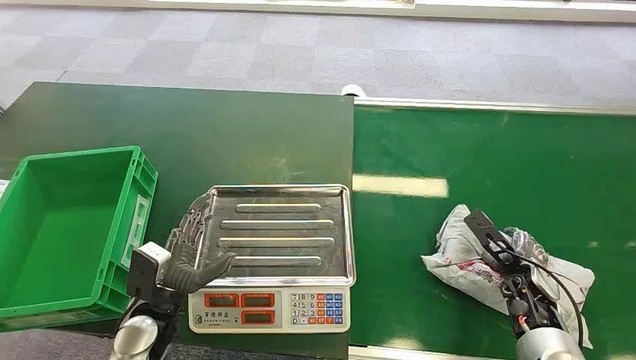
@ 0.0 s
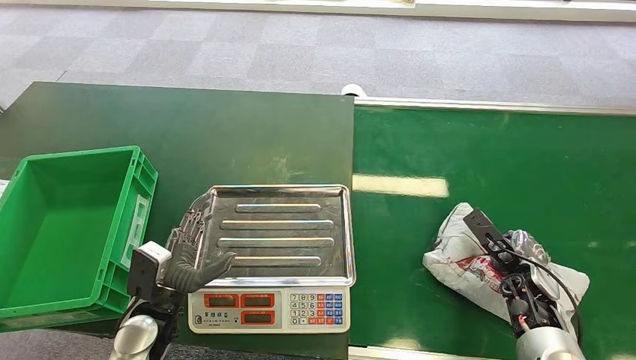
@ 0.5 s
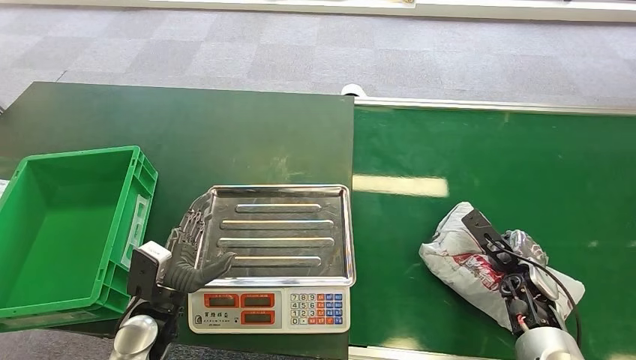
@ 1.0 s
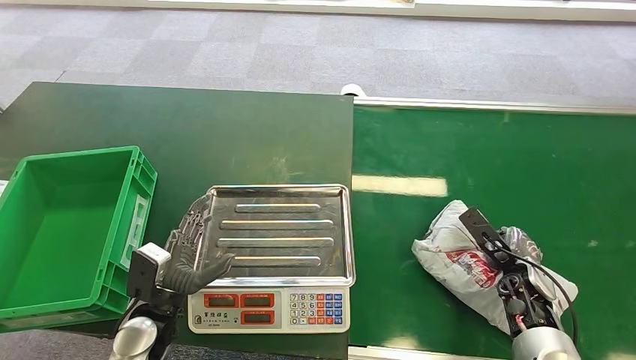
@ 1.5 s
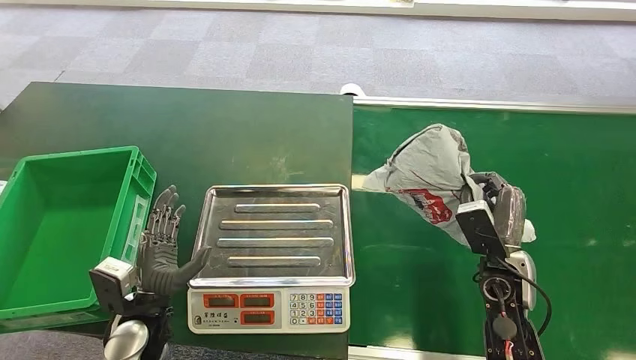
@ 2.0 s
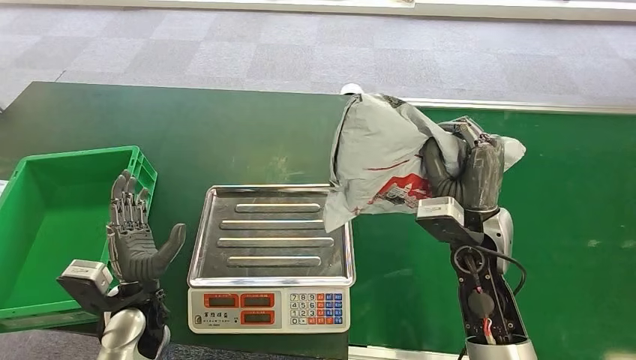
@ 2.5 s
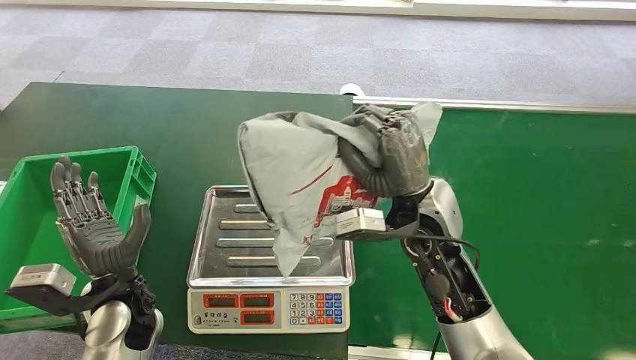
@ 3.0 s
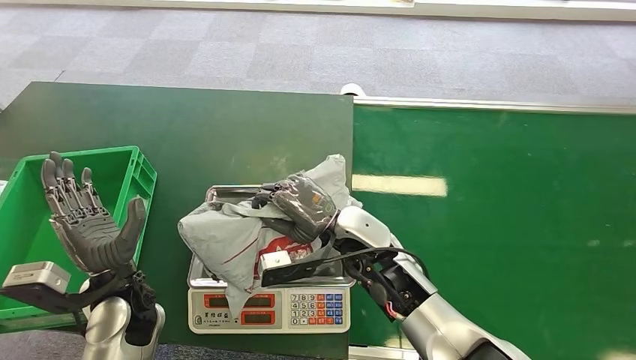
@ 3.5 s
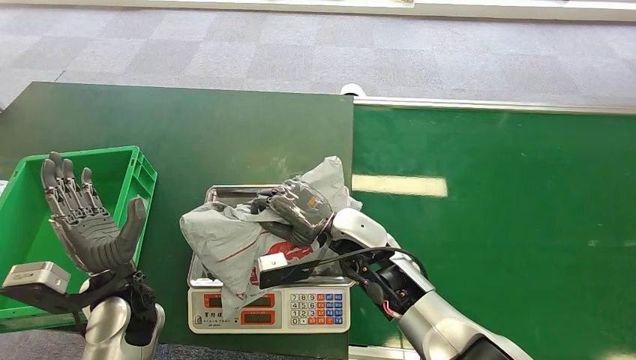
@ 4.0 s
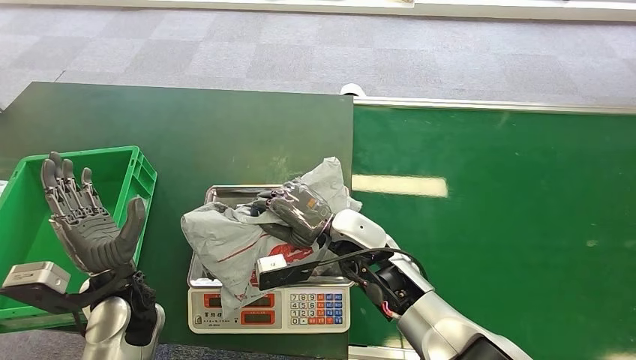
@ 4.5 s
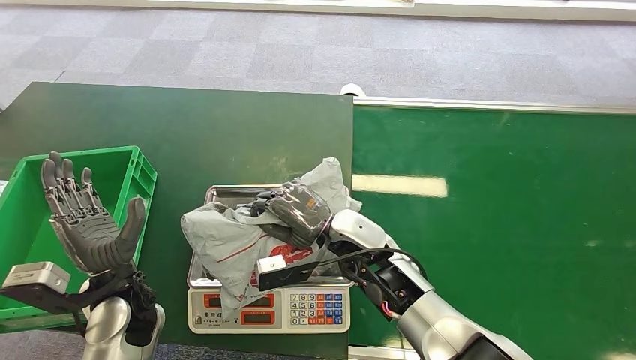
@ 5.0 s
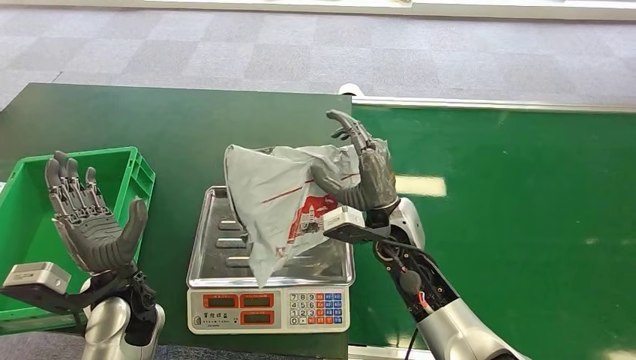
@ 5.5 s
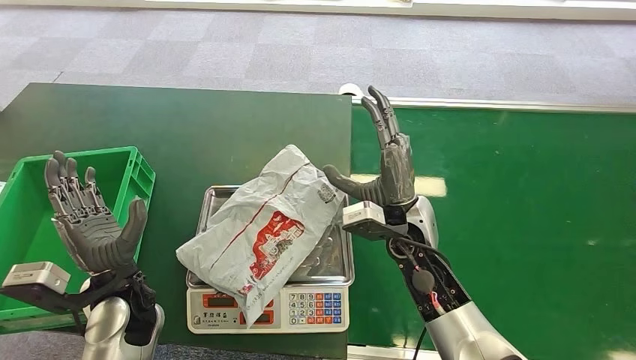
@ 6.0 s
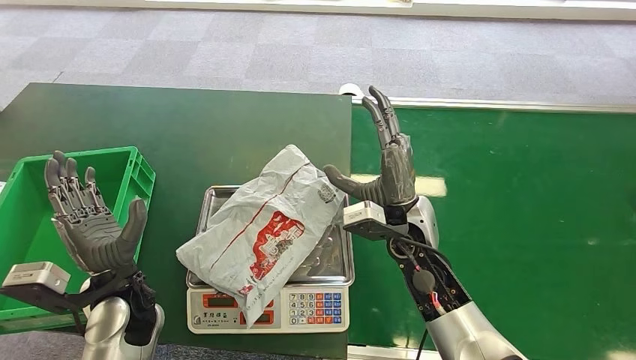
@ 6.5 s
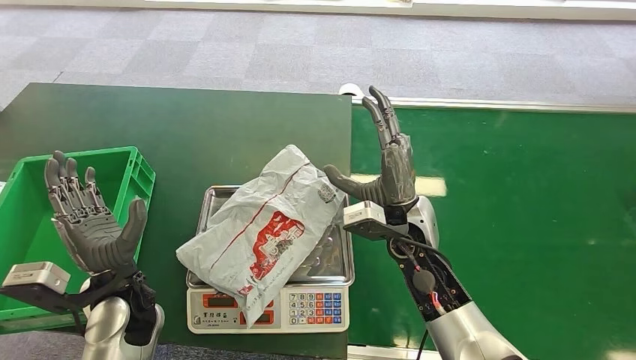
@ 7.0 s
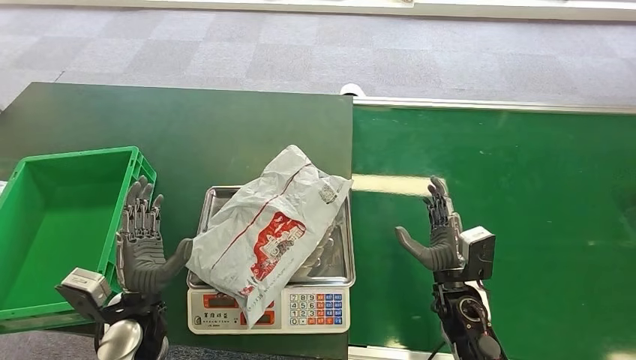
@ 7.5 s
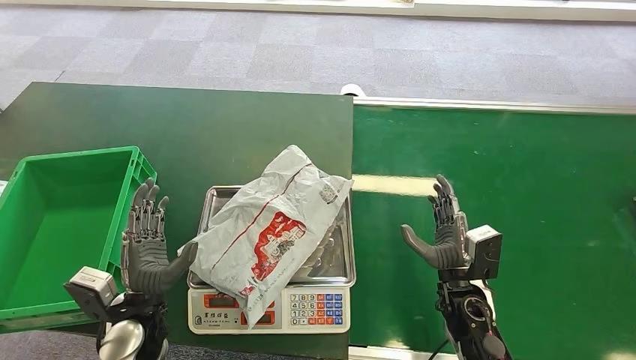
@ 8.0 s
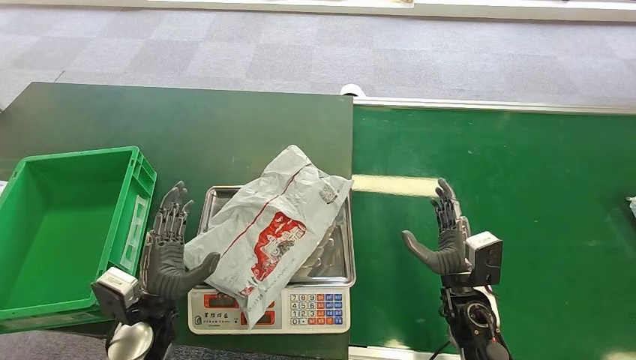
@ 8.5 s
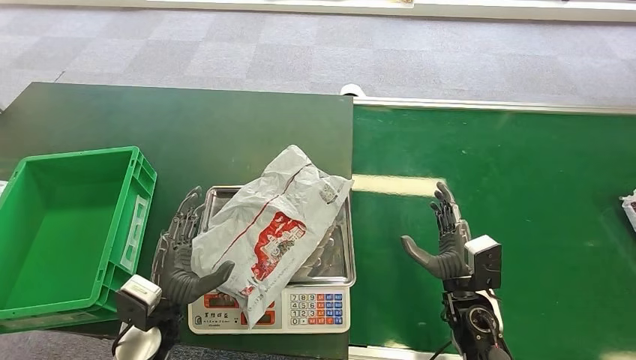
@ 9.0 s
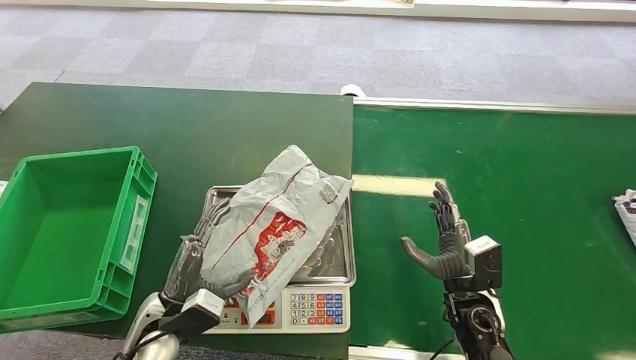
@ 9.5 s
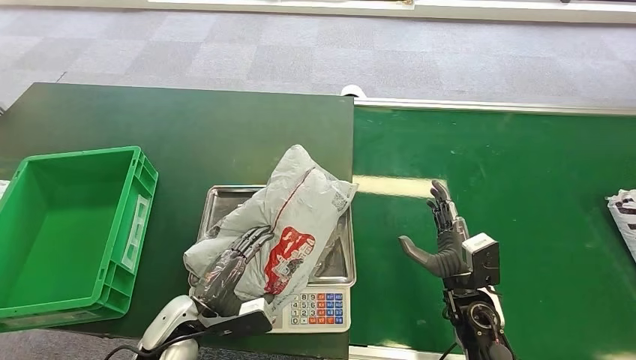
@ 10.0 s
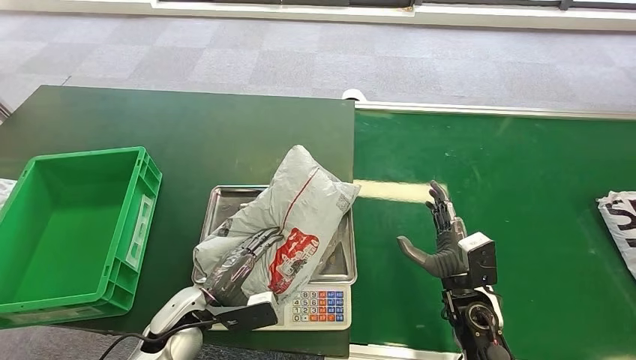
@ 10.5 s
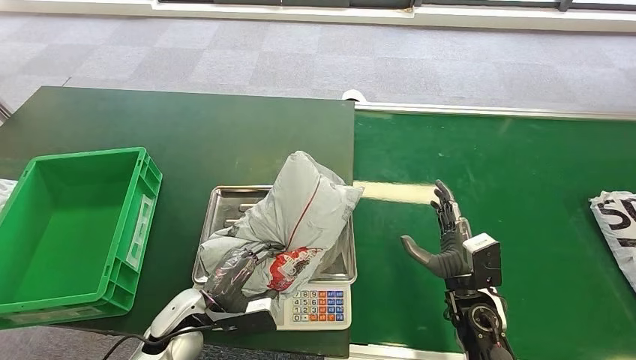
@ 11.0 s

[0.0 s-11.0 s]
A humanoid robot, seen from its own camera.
Task of the whole recording: Weigh the package on the weighing device and place it in the left basket.
Step, 0.0 to 2.0 s: Pick up the package from the conveyor belt.
Step, 3.5 to 4.0 s: Place the package onto the inbound machine.
3.5 to 5.5 s: The right hand ends up roughly 5 cm from where it was.
7.5 to 9.0 s: The hands stay close to where they were, moving slightly.

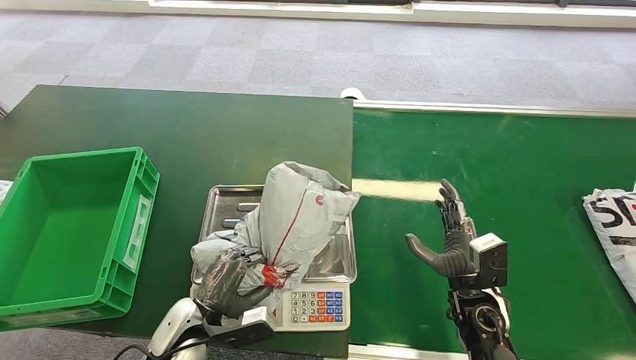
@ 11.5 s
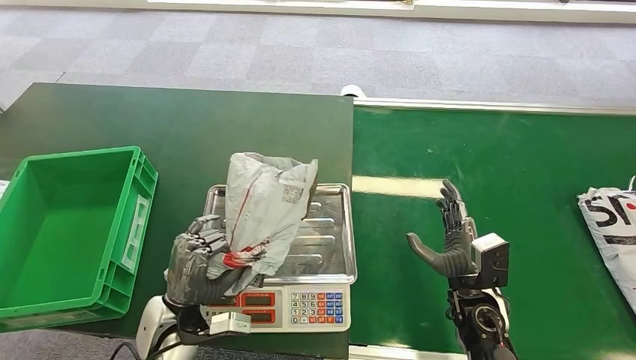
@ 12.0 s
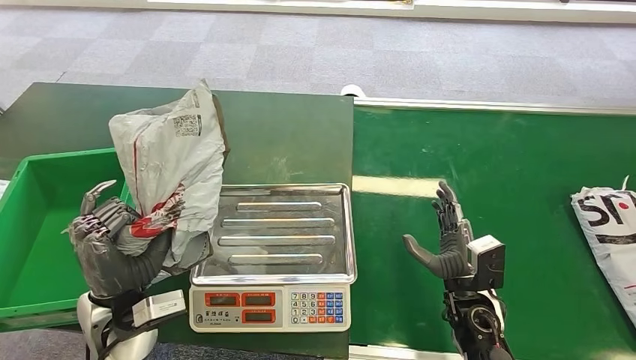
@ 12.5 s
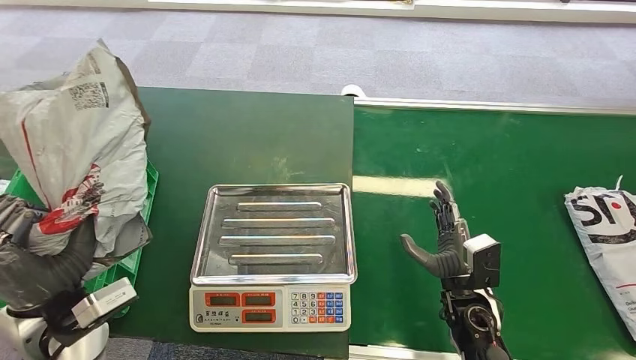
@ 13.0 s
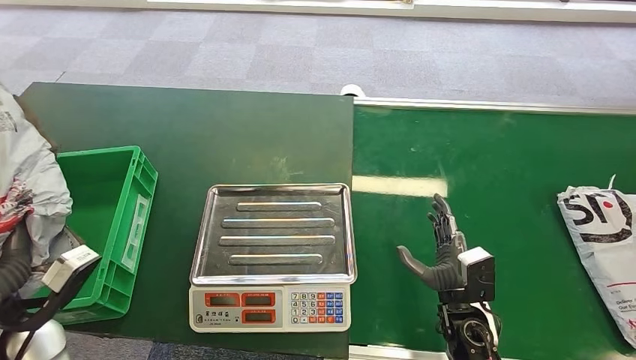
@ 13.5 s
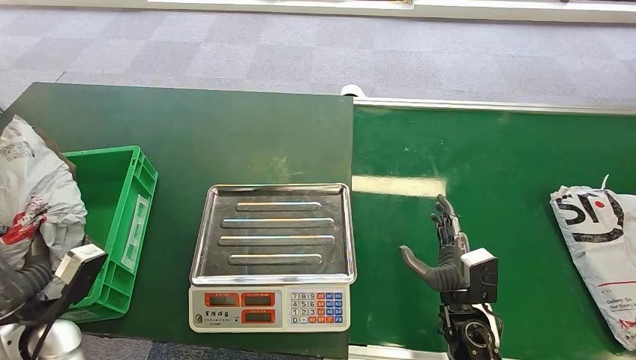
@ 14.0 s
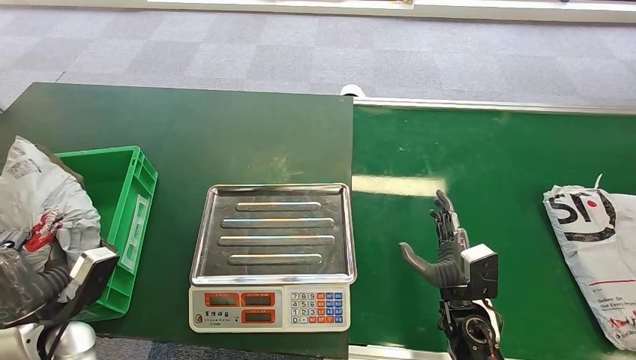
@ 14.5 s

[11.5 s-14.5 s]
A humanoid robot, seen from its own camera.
Task of the whole recording: Weigh the package on the weighing device and place it in the left basket.
Step, 13.5 to 14.5 s: Place the package into the parcel locker.
